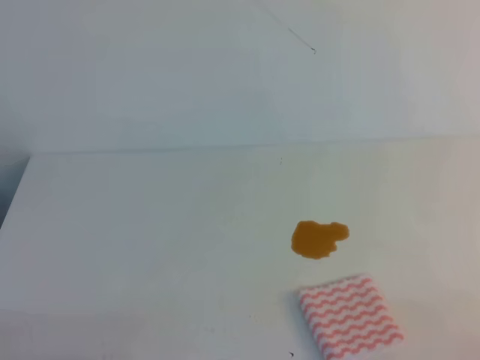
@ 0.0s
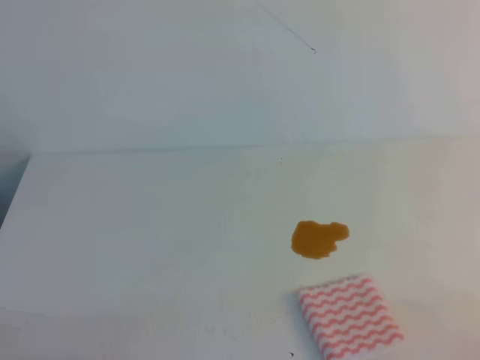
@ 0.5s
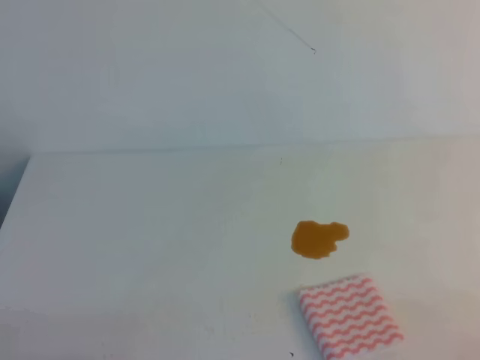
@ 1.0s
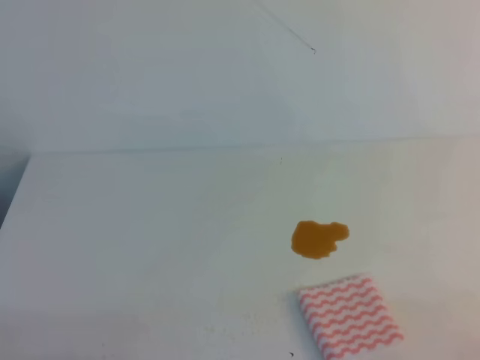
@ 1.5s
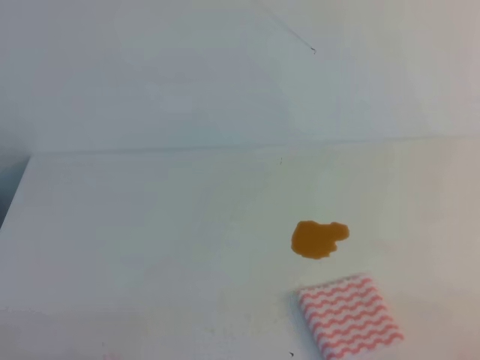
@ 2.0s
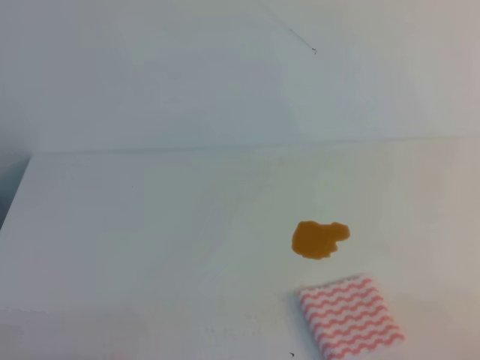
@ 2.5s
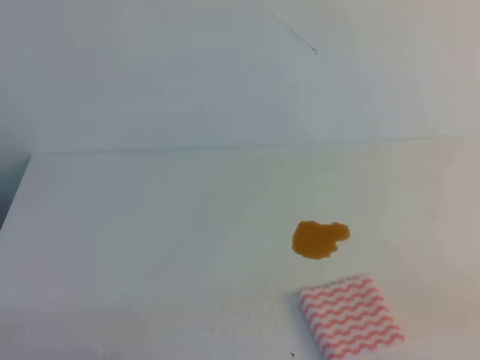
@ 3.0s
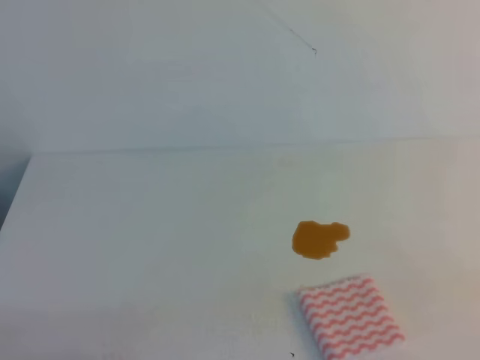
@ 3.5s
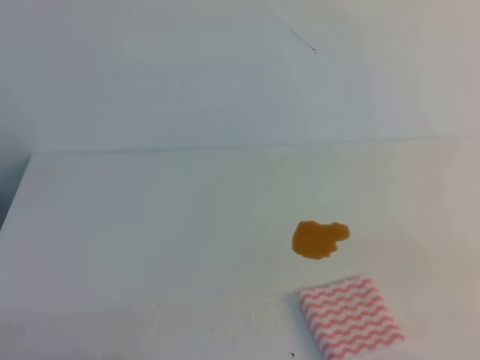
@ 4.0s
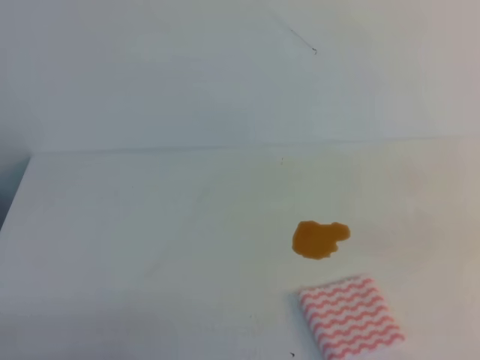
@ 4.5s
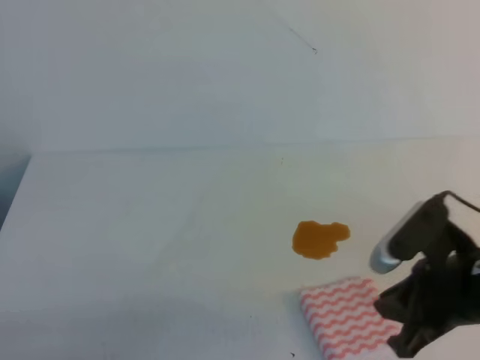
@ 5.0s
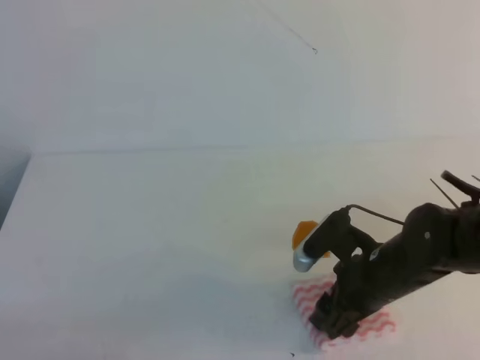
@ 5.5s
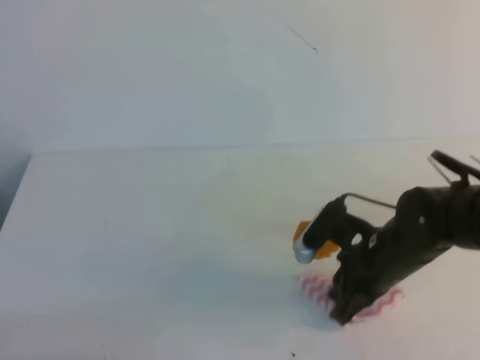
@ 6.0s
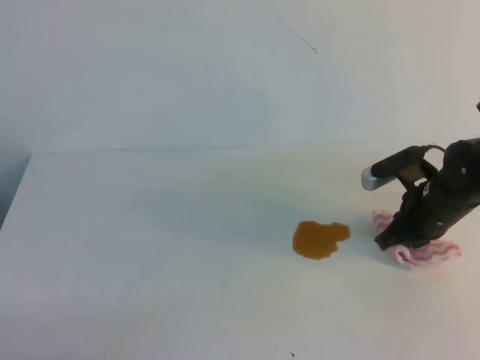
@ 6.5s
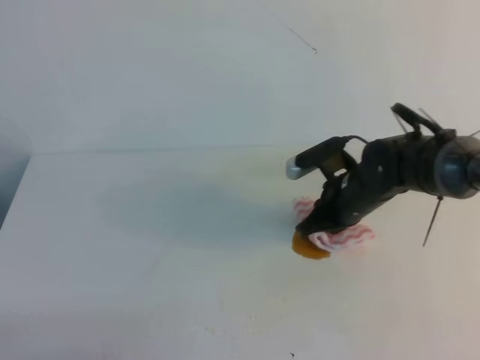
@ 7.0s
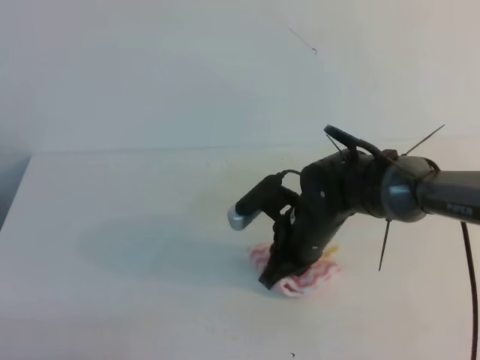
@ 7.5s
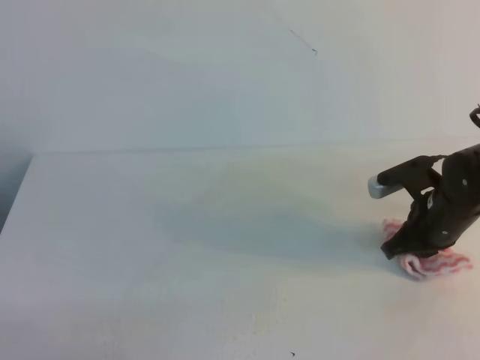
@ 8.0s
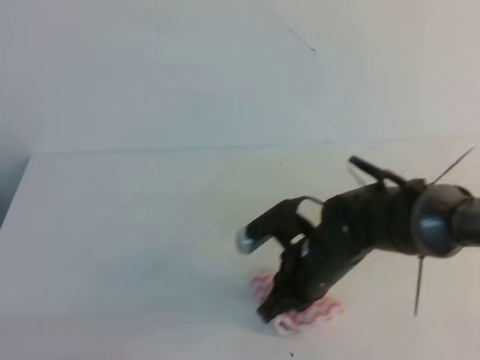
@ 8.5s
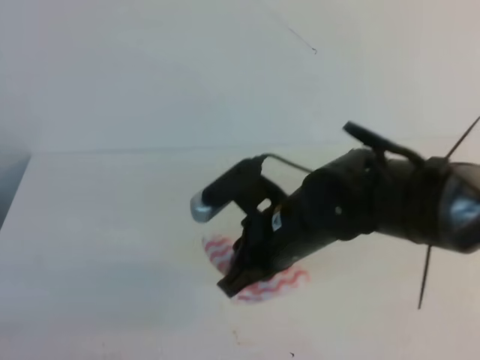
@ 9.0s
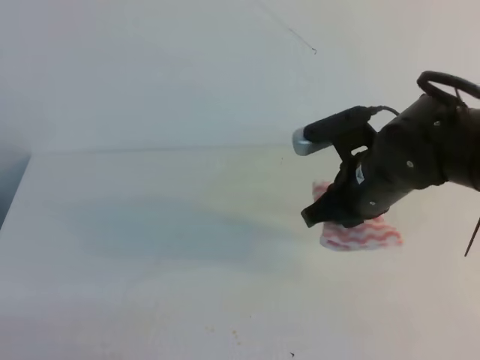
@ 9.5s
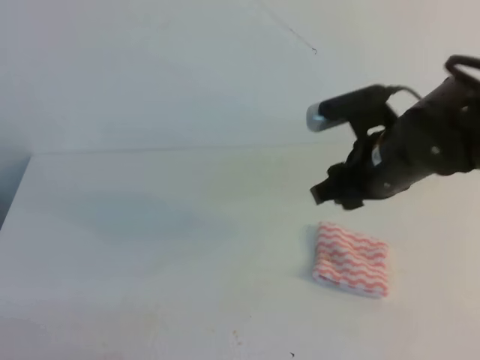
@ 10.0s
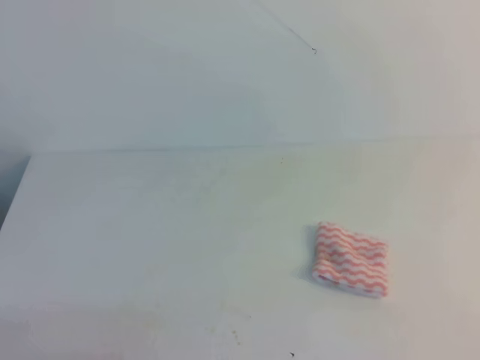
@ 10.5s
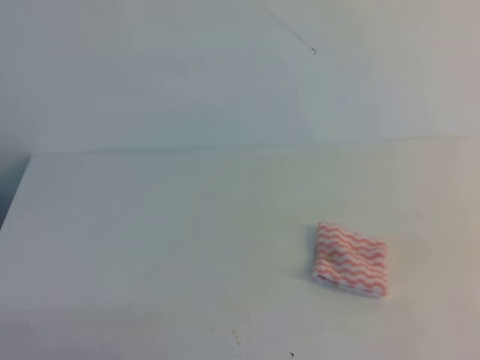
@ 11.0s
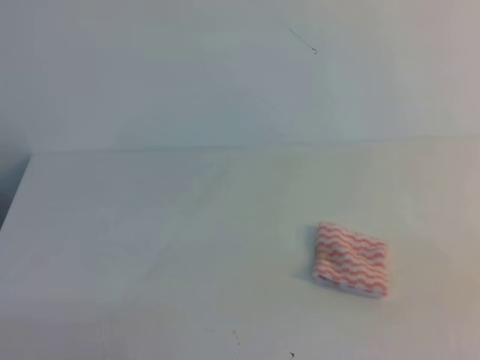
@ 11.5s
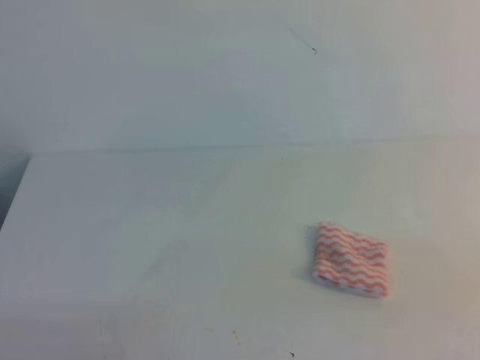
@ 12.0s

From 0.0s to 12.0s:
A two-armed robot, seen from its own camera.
From 0.0s to 2.0s: Neither gripper changes place.
From 4.0s to 6.0s: The right gripper moves forward, to the left and downward, roughly 35 cm, and opens, then closes once more.
From 6.0s to 8.0s: The right gripper moves left and right over approximately 15 cm, changing direction 2 times.
From 8.0s to 10.0s: The right gripper heads upward and to the left, covering some 15 cm, and opens.
From 10.0s to 12.0s: The right gripper goes about 35 cm backward and to the right, and closes up.

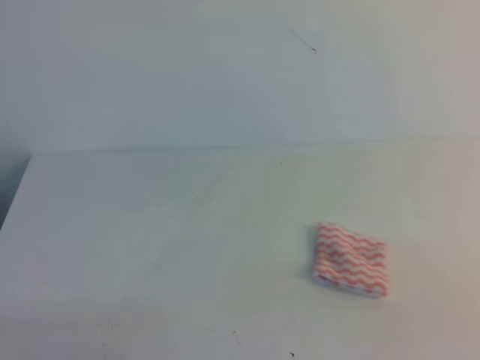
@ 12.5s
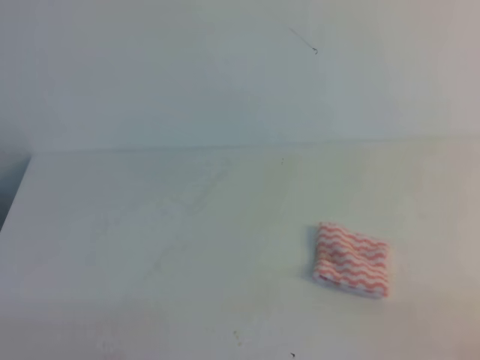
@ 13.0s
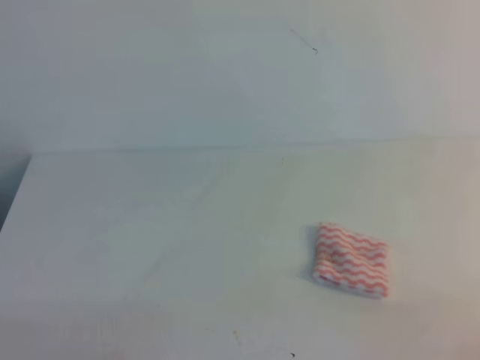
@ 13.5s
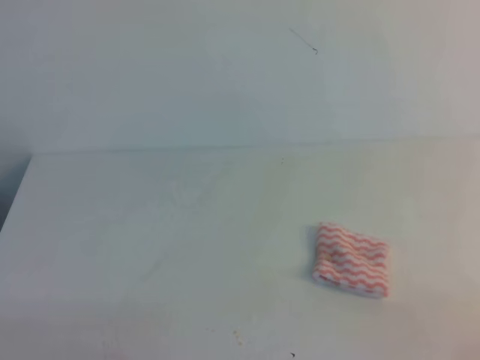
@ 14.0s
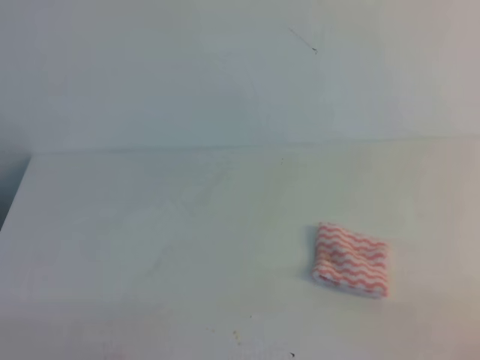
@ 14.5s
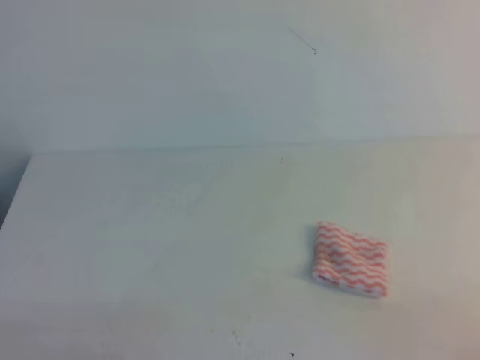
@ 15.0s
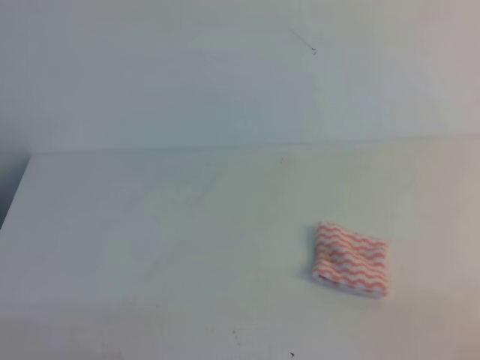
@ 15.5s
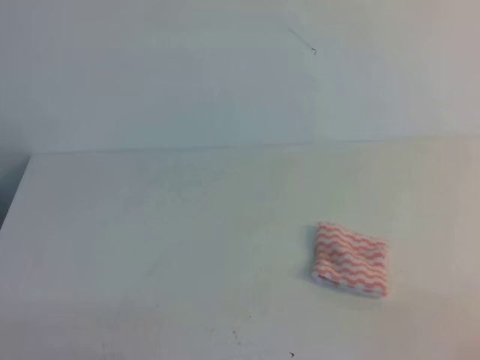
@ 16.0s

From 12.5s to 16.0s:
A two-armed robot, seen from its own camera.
From 14.5s to 16.0s: Both grippers stay put.
